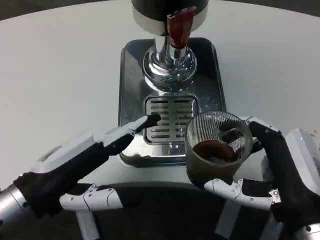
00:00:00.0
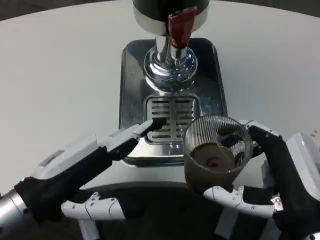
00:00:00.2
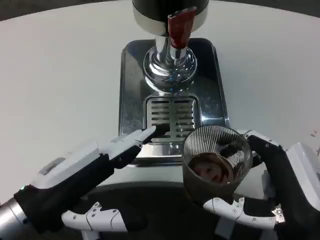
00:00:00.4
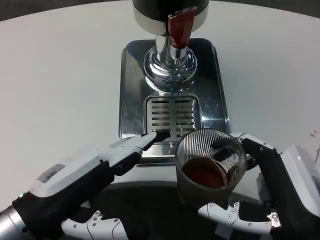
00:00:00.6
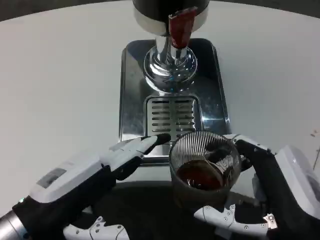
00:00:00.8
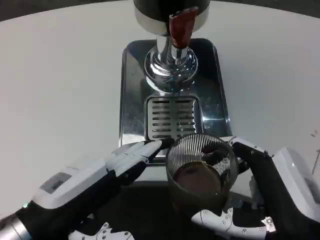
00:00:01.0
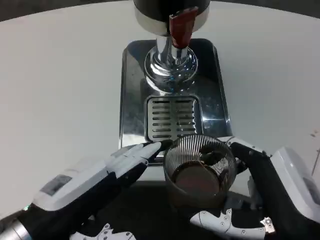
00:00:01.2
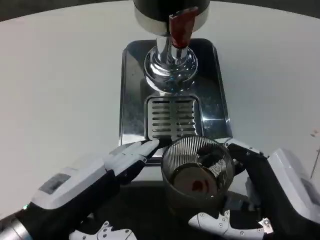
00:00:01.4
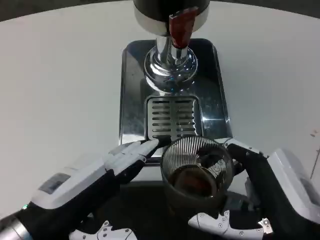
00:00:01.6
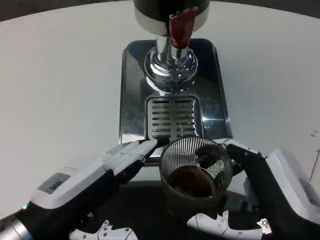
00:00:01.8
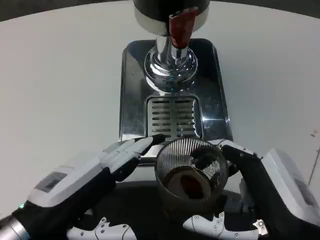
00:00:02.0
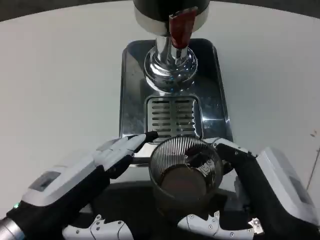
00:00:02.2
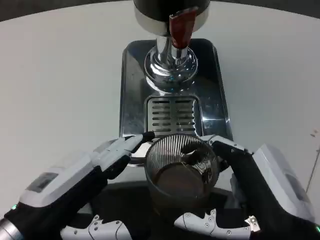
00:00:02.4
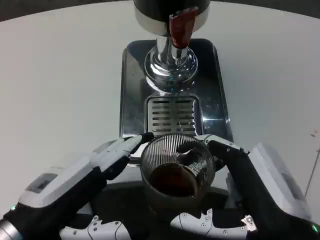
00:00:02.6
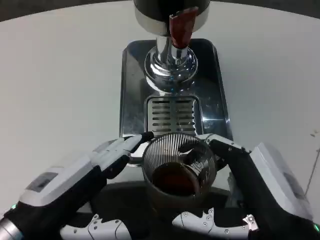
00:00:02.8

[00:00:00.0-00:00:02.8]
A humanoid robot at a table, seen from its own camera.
Task of the whole recording: Grasp the cup under the faucet to collect the drink, then remove the cup.
00:00:01.4 to 00:00:02.8: The hands stay close to where they were, moving slightly.

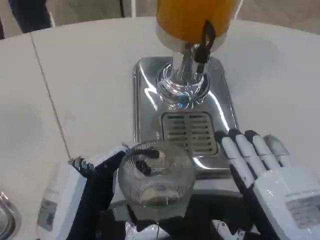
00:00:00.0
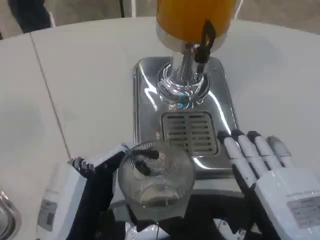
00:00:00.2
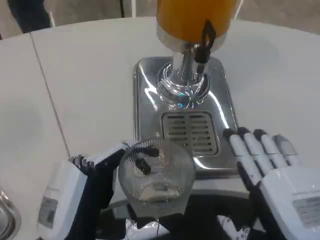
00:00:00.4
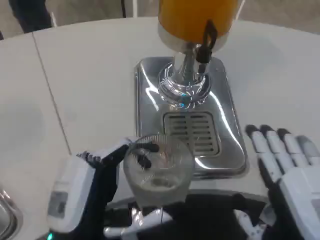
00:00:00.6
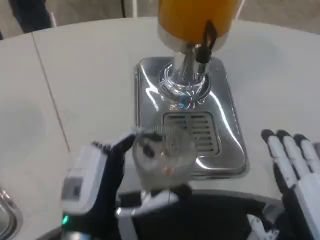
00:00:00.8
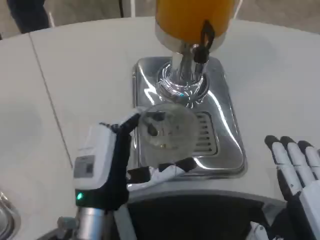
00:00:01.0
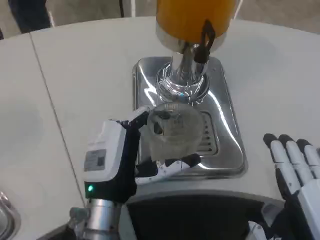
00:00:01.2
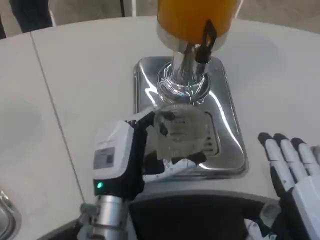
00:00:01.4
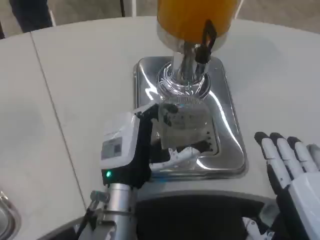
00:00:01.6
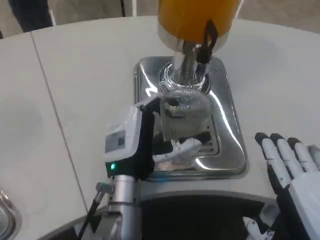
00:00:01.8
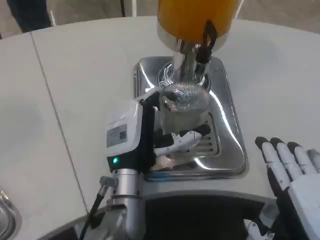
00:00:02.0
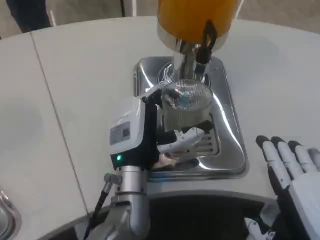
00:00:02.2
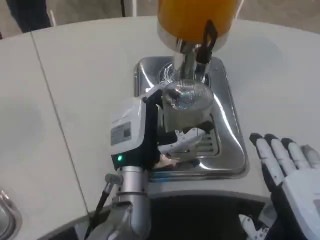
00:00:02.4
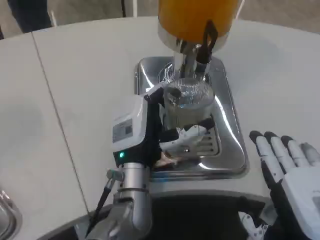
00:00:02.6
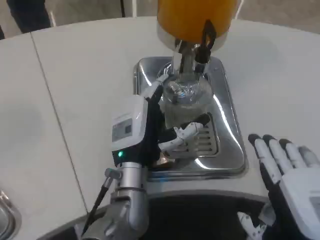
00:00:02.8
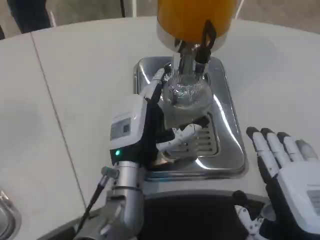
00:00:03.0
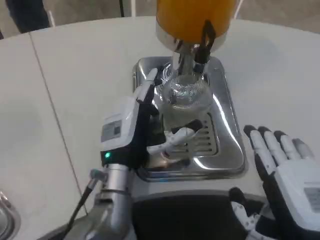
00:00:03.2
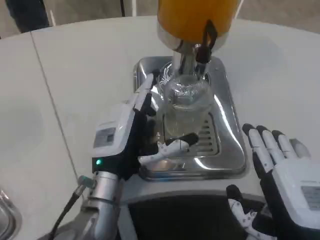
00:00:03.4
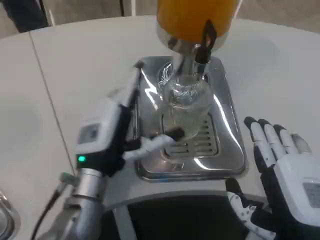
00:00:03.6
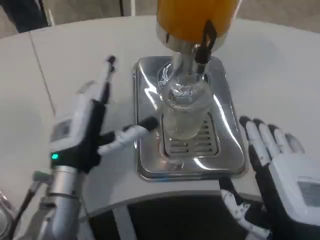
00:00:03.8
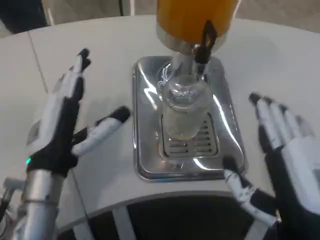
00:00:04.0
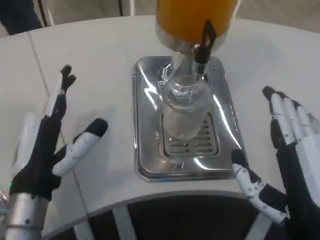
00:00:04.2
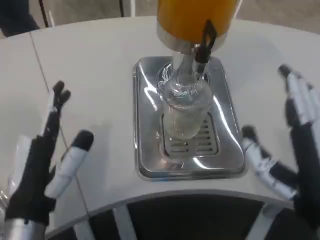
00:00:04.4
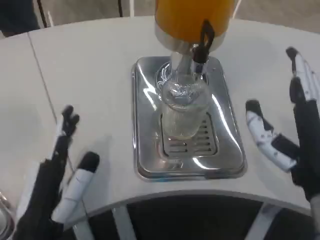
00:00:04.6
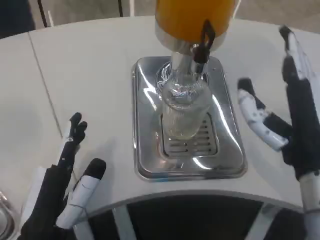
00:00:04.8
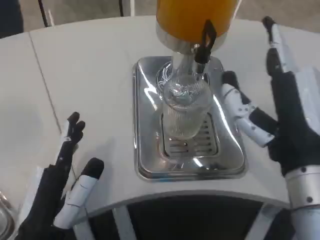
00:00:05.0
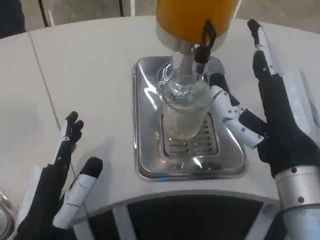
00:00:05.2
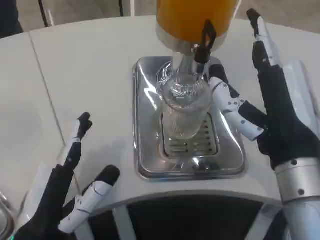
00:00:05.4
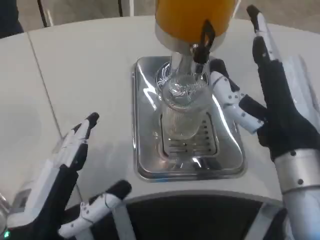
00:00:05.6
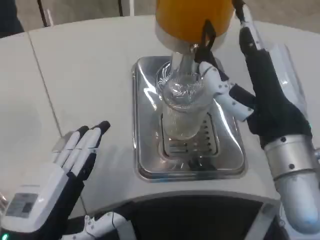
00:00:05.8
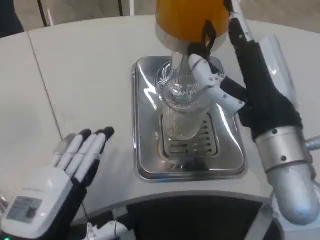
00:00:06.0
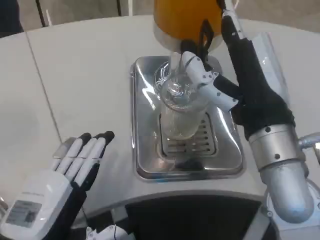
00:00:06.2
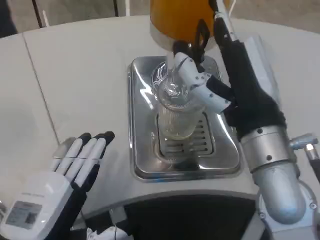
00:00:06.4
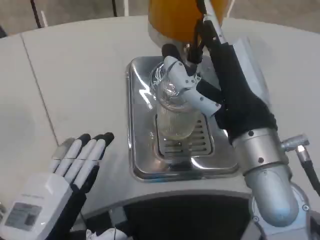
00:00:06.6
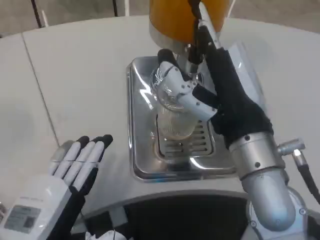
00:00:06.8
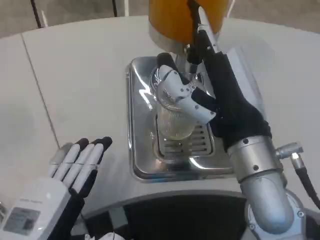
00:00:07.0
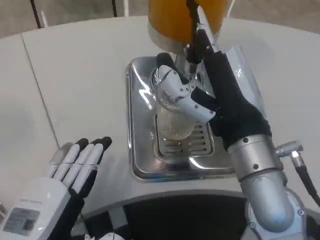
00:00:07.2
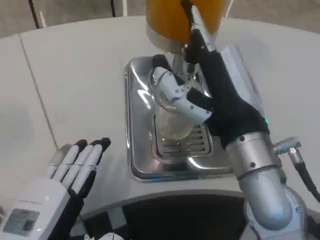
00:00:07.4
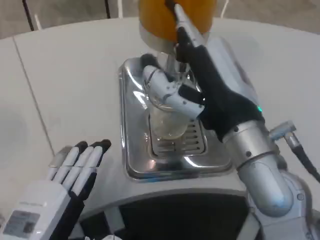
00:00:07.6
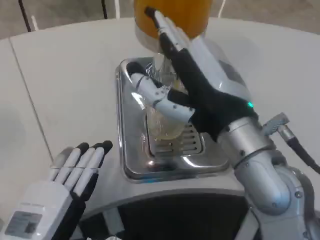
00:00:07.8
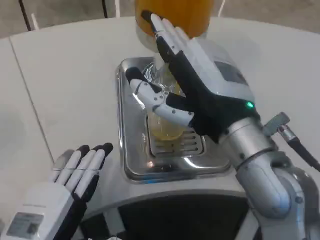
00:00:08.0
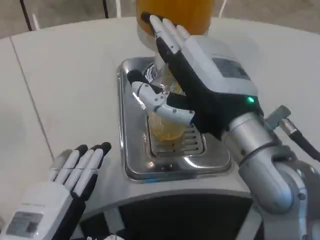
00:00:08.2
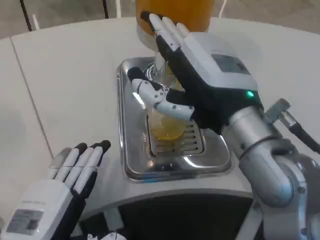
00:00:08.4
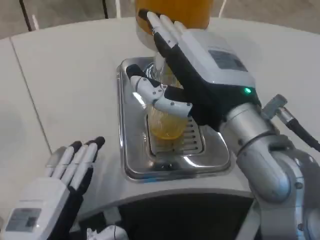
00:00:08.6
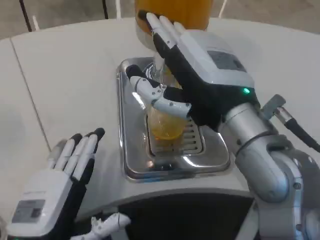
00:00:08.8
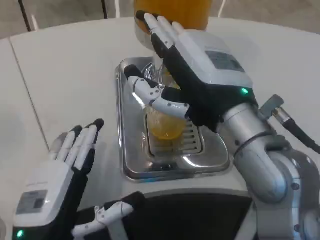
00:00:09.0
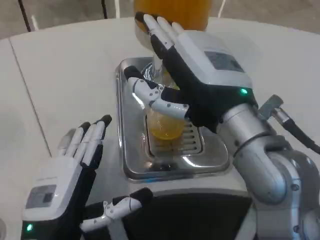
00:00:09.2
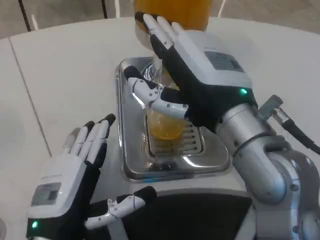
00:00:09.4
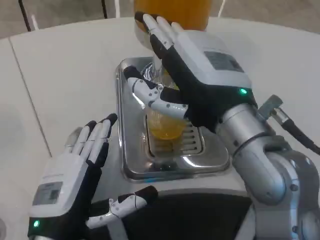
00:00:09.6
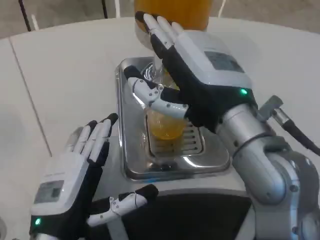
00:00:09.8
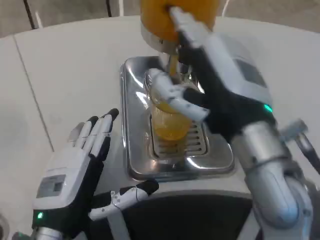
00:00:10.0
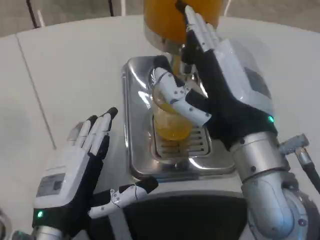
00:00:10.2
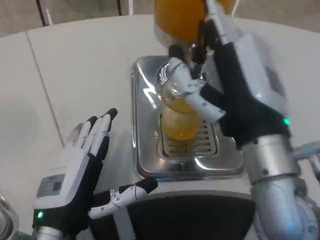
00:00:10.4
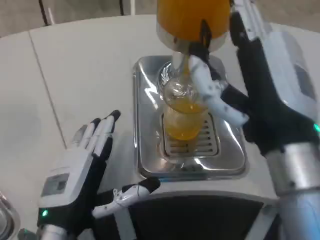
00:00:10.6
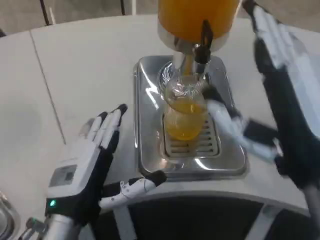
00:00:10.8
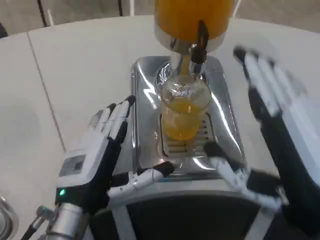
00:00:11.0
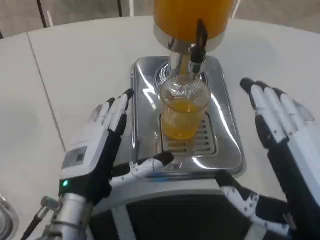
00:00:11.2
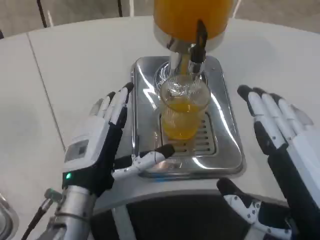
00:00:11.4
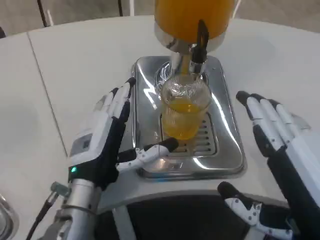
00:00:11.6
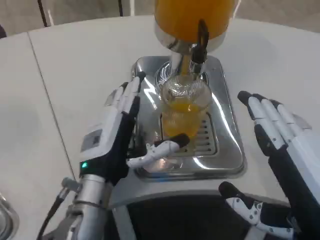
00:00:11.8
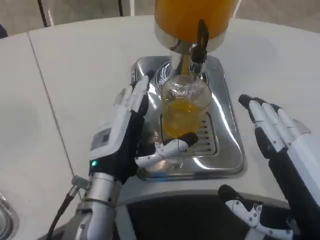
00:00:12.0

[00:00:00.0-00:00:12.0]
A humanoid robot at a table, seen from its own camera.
Task of the whole recording: Grasp the cup under the faucet to collect the drink, then remove the cup.
00:00:00.0 to 00:00:01.6: The left hand heads forward and to the right, covering about 15 cm.
00:00:01.6 to 00:00:03.0: The hands move only a little.
00:00:03.0 to 00:00:04.4: The left hand goes roughly 15 cm backward and to the left.
00:00:04.4 to 00:00:06.0: The right hand goes roughly 10 cm forward and upward.
00:00:10.4 to 00:00:12.0: The right hand shifts approximately 10 cm backward and to the right; the left hand is displaced forward and to the right by about 10 cm.

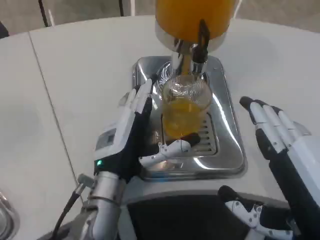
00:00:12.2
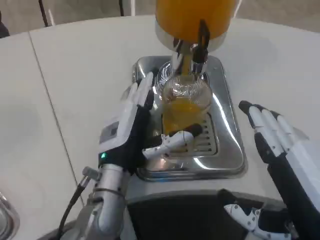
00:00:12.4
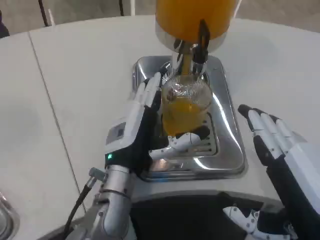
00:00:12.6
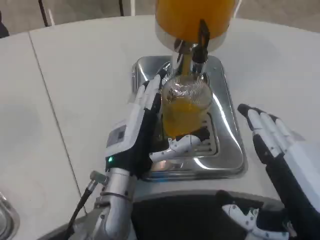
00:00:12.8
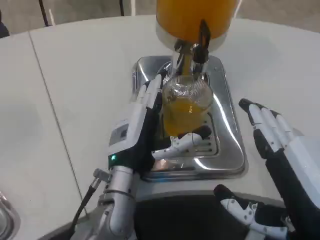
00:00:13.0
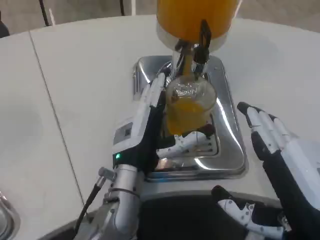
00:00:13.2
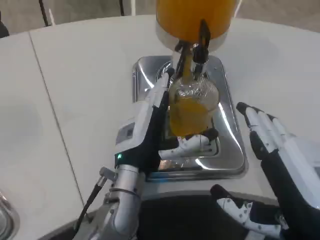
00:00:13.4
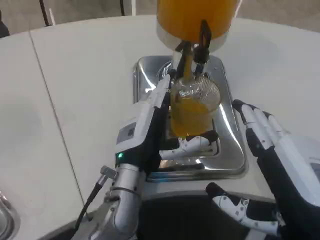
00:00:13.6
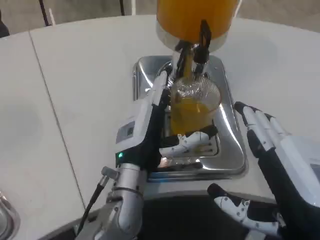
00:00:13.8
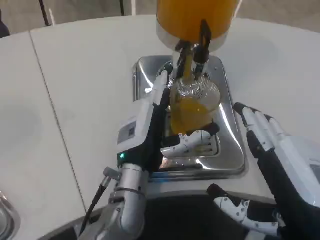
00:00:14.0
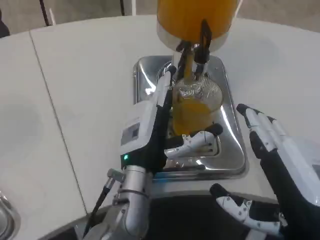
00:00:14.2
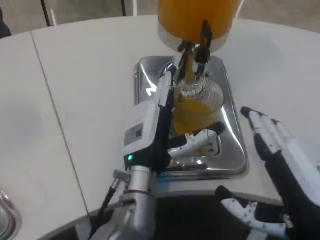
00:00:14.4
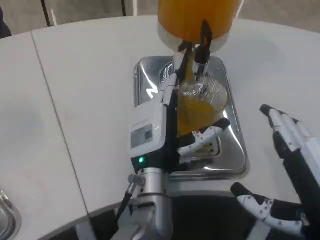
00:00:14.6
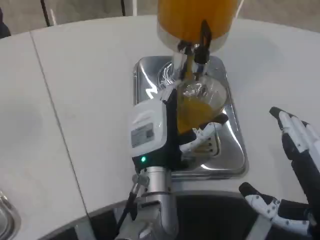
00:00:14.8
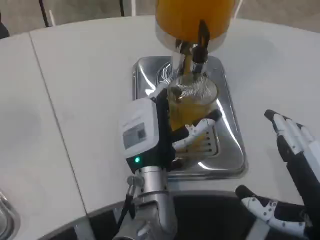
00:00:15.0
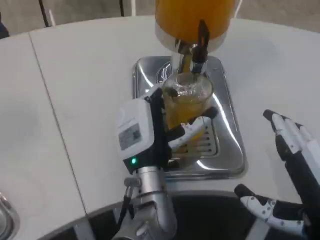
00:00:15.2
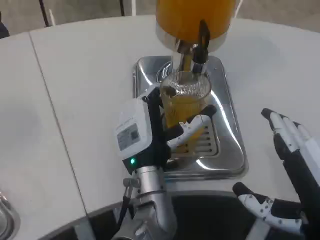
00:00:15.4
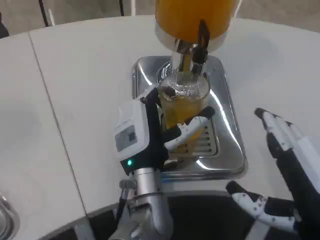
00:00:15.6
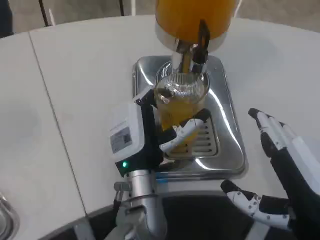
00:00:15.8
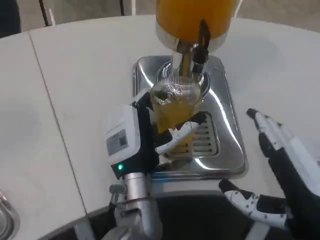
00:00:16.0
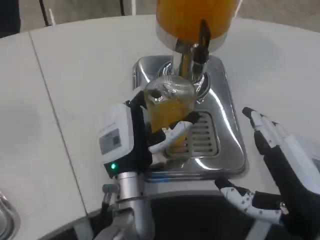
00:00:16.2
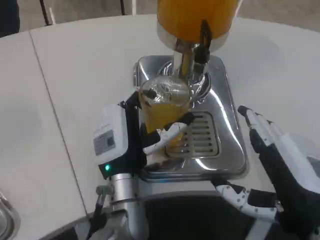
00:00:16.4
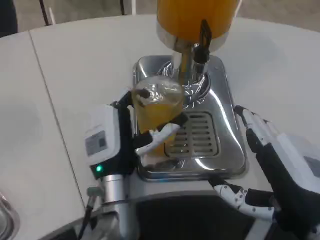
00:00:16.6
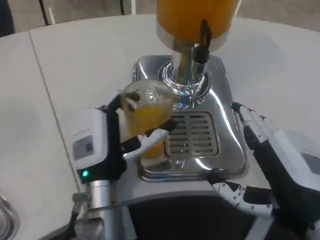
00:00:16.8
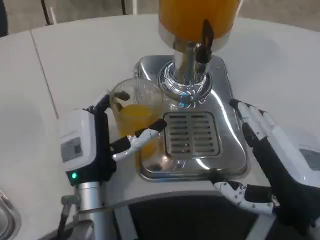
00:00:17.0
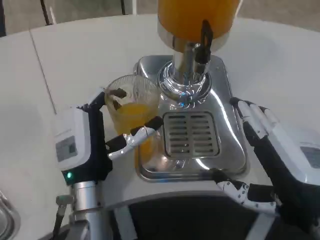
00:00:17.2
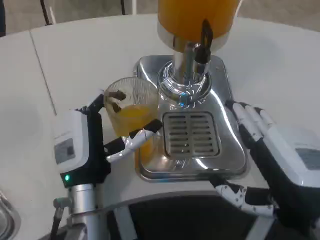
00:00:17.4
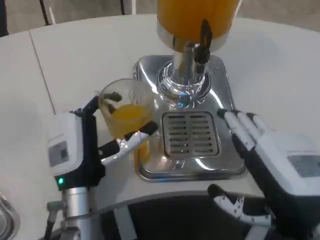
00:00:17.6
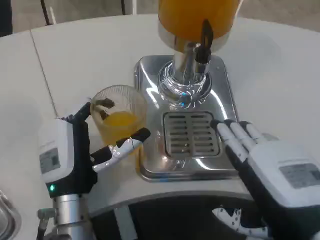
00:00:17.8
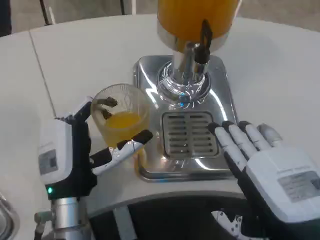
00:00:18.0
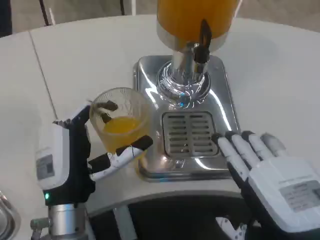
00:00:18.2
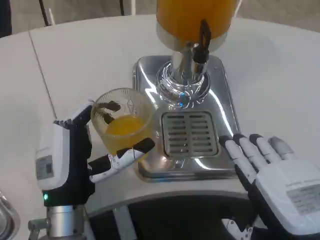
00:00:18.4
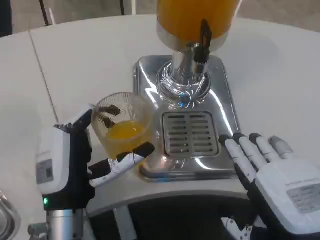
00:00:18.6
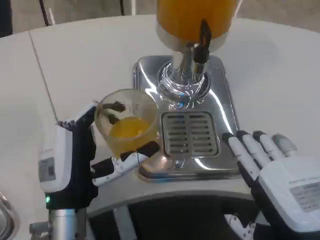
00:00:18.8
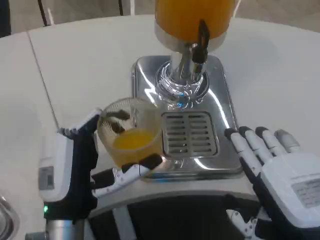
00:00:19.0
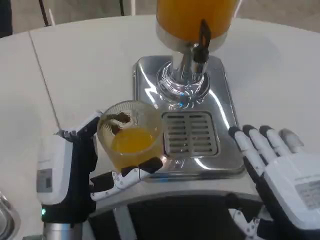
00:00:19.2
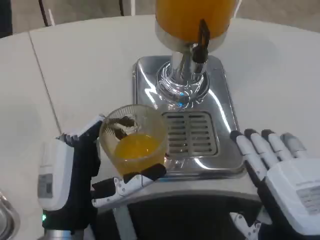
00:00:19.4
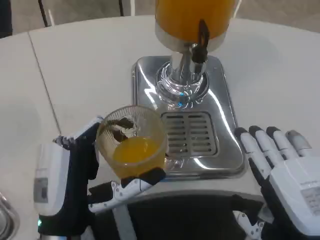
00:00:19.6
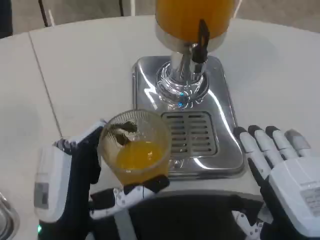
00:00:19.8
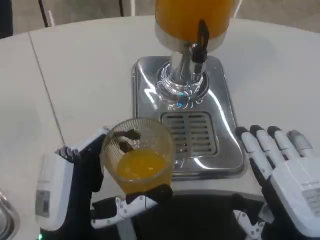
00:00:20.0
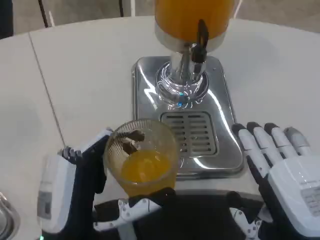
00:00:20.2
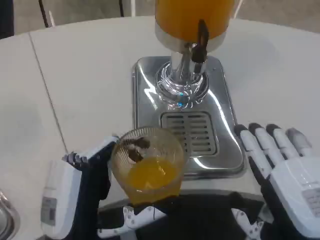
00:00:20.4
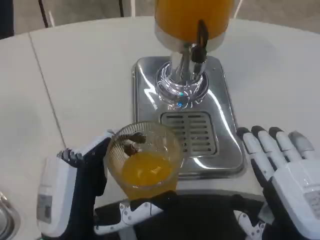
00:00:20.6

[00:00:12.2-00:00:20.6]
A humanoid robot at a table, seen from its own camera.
Task of the whole recording: Grasp the cup under the faucet to collect the drink, then remove the cup.
00:00:12.2 to 00:00:13.6: The hands make only small movements.
00:00:13.6 to 00:00:15.0: The left hand shifts some 5 cm to the right.
00:00:16.4 to 00:00:17.8: The left hand goes about 5 cm to the left.
00:00:17.8 to 00:00:19.2: The left hand travels backward by roughly 5 cm.
00:00:19.2 to 00:00:20.6: There are only small adjustments of the hands.
